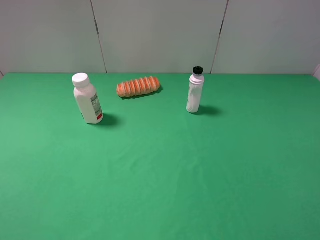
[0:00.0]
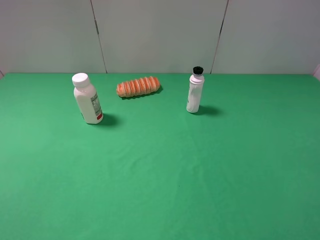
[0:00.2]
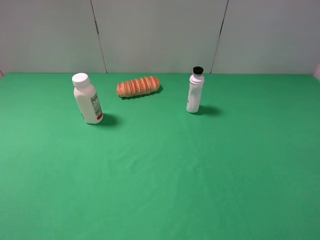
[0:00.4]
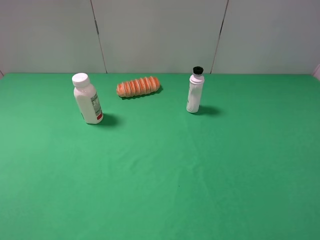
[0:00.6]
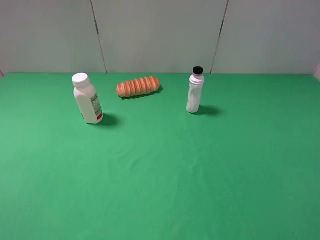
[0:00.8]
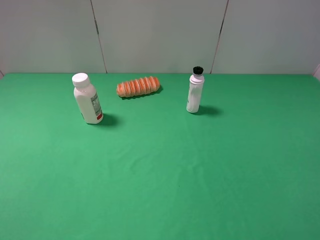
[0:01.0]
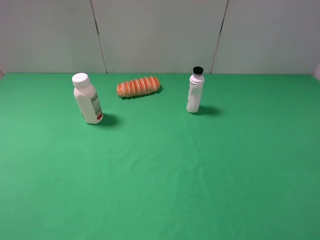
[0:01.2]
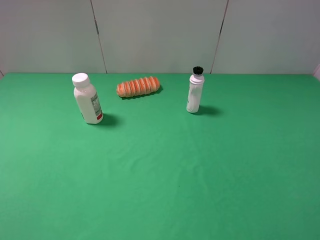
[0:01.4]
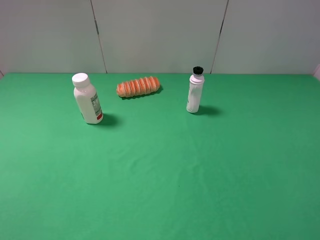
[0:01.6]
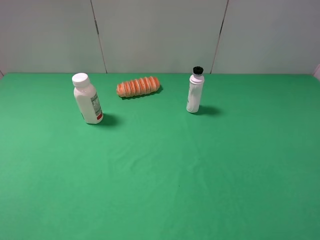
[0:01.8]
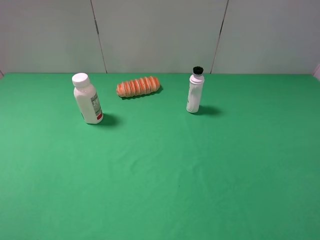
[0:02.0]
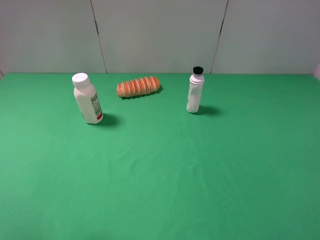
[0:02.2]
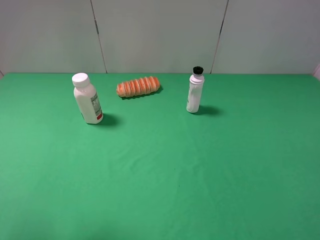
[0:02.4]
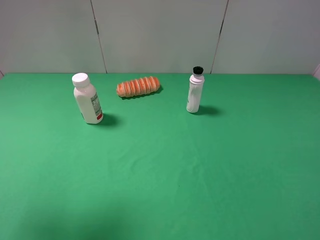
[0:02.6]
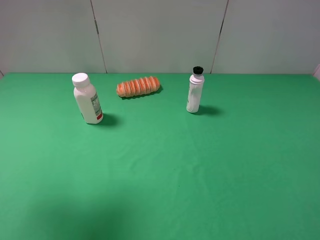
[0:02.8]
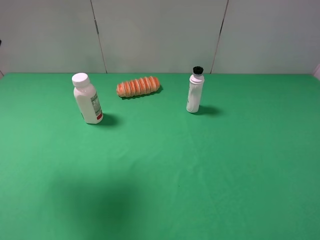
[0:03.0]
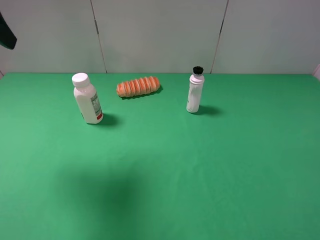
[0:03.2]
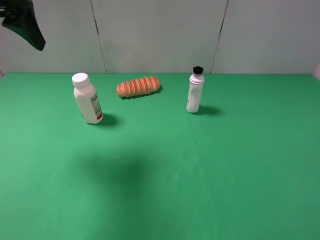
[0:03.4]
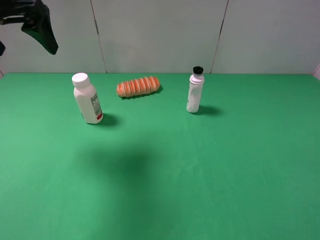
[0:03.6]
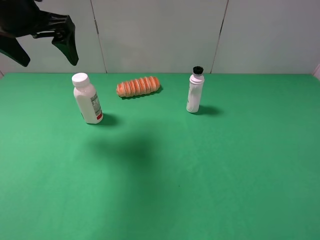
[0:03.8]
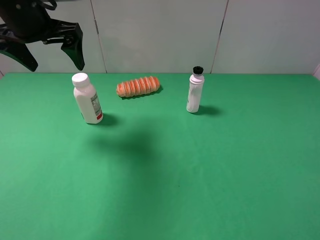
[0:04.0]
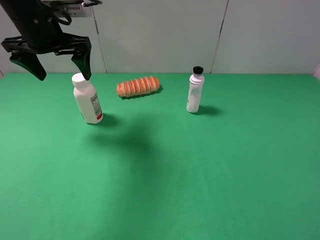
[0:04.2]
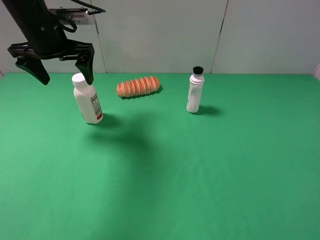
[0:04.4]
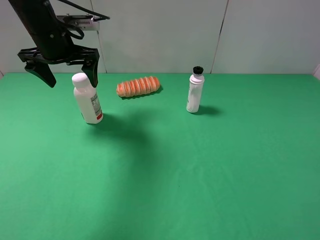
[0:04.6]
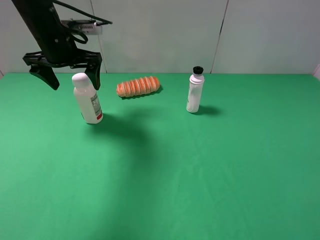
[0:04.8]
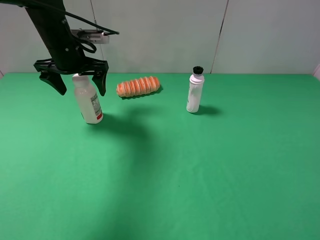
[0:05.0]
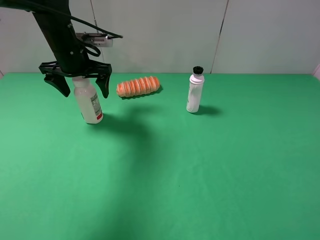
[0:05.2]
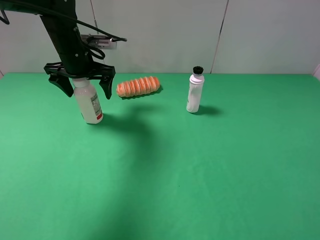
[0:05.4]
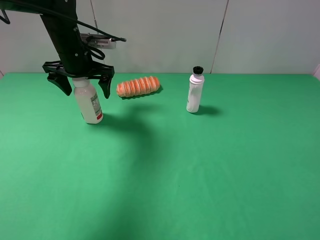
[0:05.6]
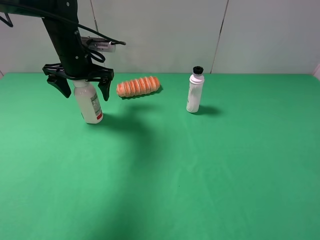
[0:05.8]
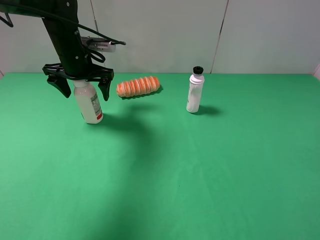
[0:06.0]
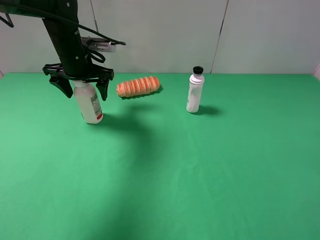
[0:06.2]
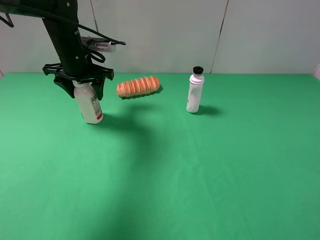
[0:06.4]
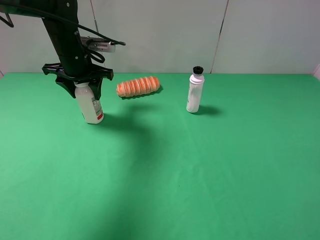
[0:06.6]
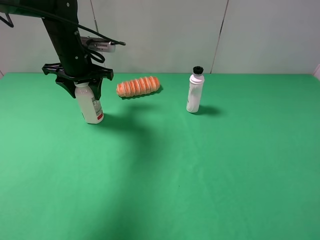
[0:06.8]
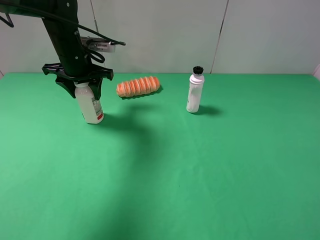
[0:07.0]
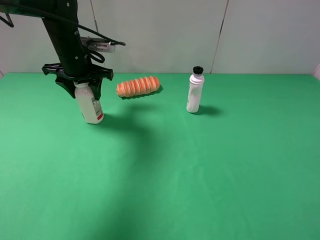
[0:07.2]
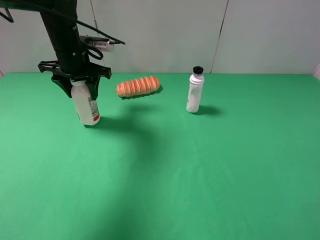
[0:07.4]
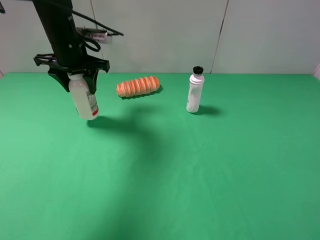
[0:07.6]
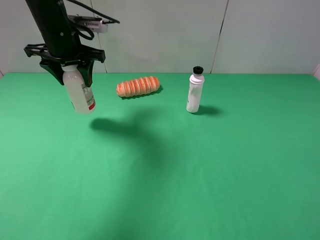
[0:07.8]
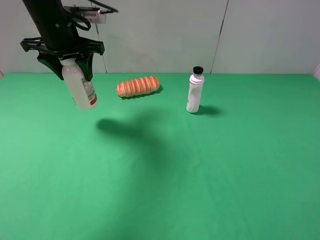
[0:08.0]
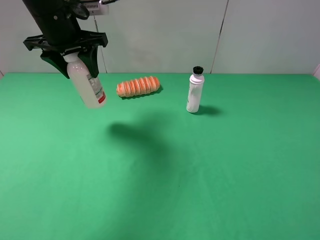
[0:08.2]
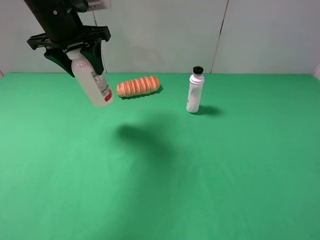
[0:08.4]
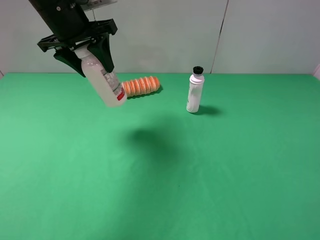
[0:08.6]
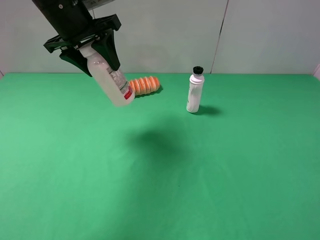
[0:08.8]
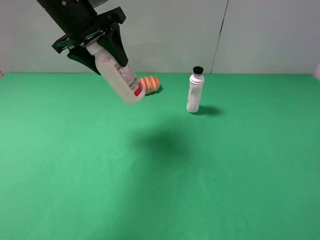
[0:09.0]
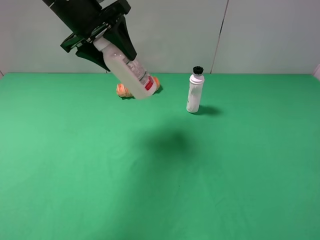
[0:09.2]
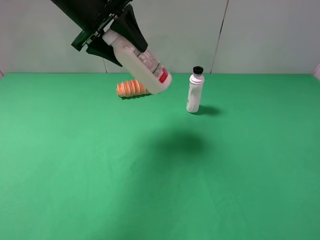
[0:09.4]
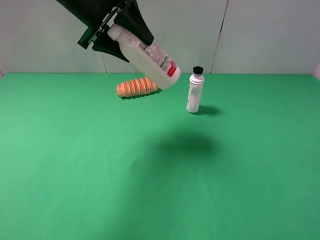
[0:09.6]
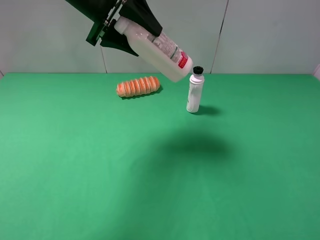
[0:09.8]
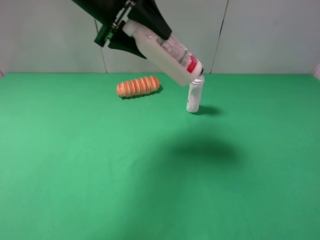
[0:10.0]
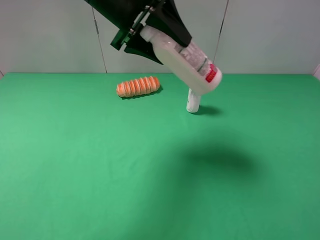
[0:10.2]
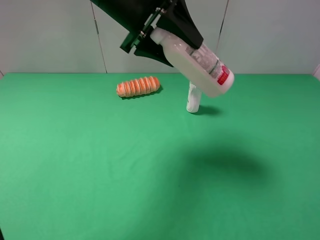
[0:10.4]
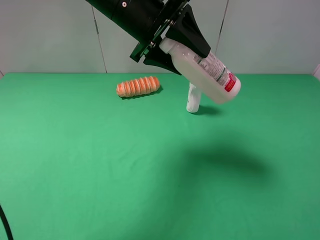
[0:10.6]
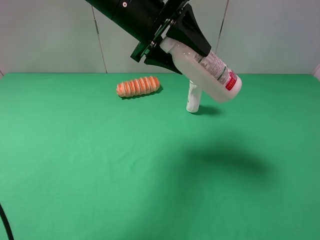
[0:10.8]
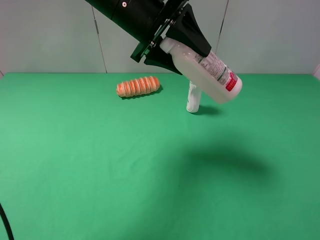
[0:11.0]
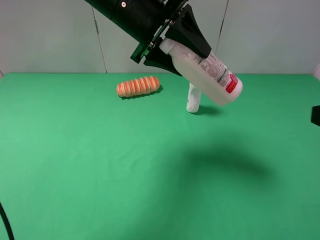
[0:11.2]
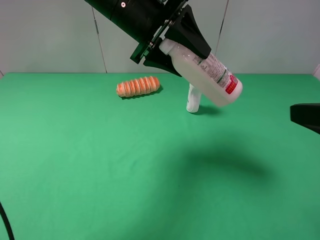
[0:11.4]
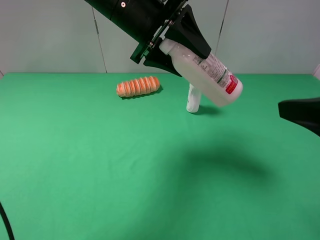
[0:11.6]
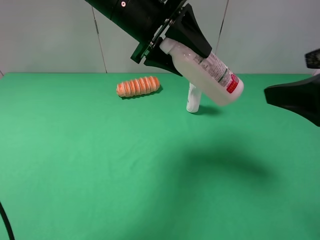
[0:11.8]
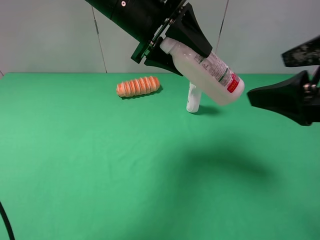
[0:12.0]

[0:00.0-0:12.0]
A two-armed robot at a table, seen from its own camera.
Task of the whole recording: use the left gripper to pick up the item and transfer it from the left gripper to the right gripper.
Step, 0:00.0 to 0:06.4: Use the left gripper to grab the milk on the left side of the table.
0:00.0 to 0:01.6: Both grippers stay about where they are.
0:01.6 to 0:03.0: The left gripper heads forward and upward, covering some 25 cm.
0:03.0 to 0:04.4: The left gripper shifts some 20 cm forward, downward and to the right.
0:04.4 to 0:06.0: The left gripper heads downward, covering approximately 5 cm.
0:06.0 to 0:07.6: The left gripper closes its fingers.
0:07.6 to 0:09.0: The left gripper travels upward by about 5 cm.
0:09.0 to 0:10.4: The left gripper shifts about 10 cm to the right.
0:10.4 to 0:12.0: The right gripper moves forward and to the left, about 15 cm.

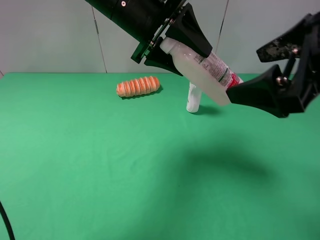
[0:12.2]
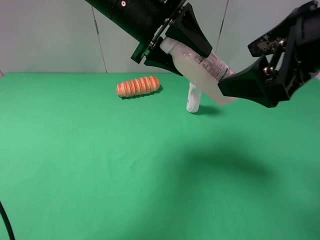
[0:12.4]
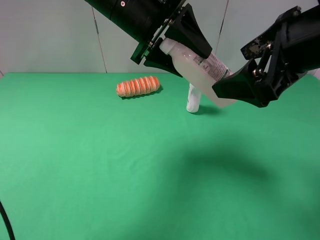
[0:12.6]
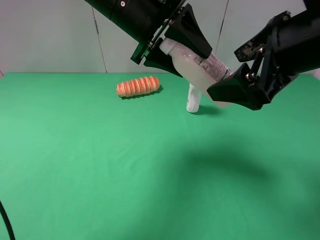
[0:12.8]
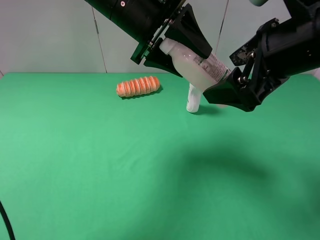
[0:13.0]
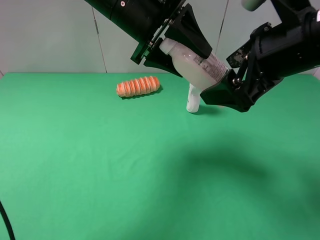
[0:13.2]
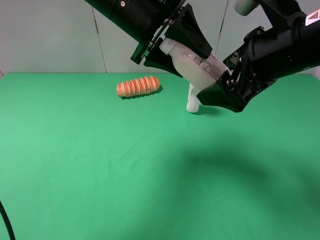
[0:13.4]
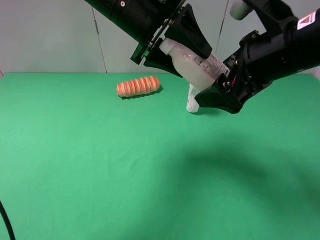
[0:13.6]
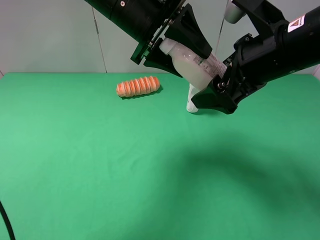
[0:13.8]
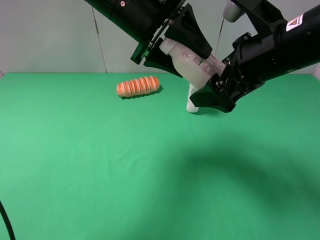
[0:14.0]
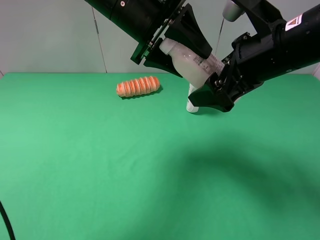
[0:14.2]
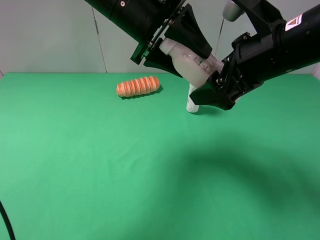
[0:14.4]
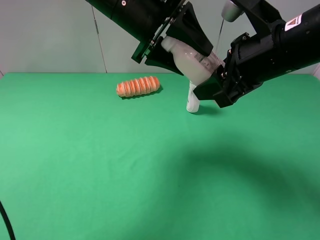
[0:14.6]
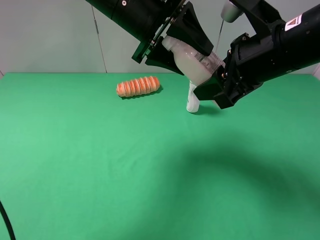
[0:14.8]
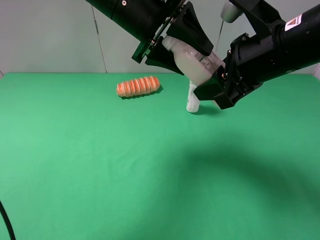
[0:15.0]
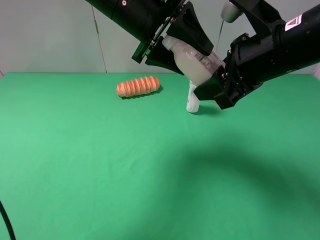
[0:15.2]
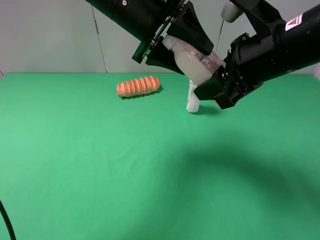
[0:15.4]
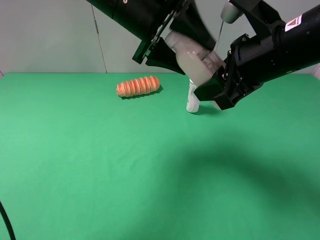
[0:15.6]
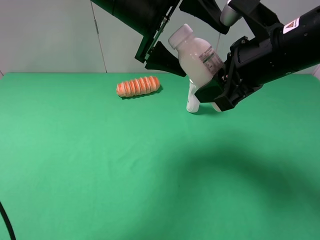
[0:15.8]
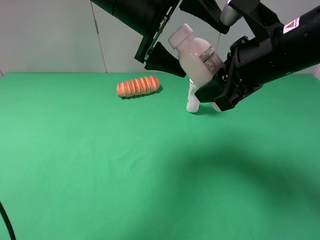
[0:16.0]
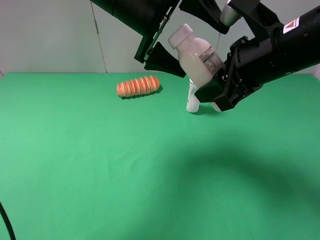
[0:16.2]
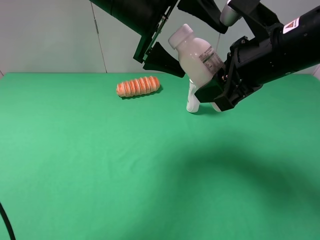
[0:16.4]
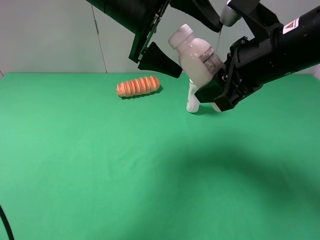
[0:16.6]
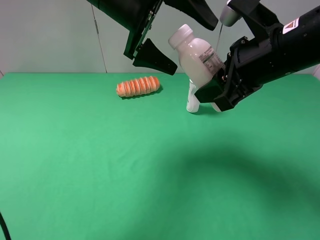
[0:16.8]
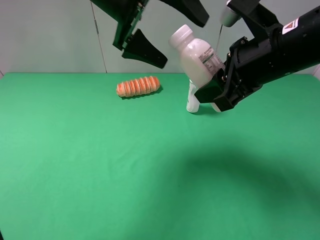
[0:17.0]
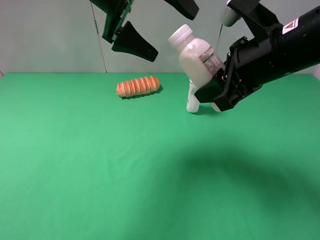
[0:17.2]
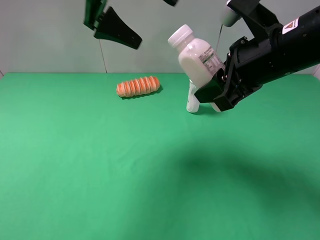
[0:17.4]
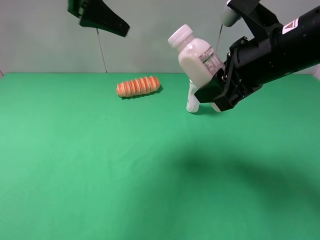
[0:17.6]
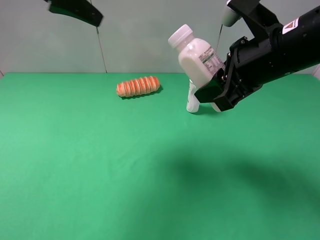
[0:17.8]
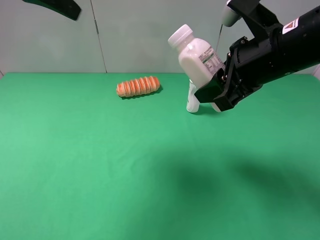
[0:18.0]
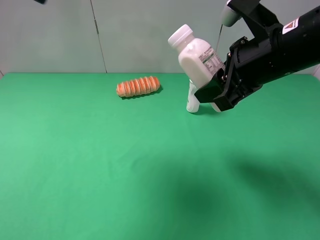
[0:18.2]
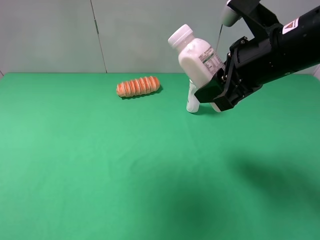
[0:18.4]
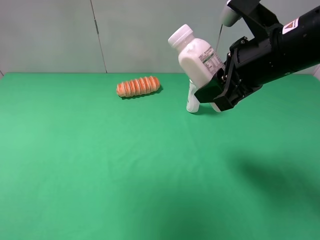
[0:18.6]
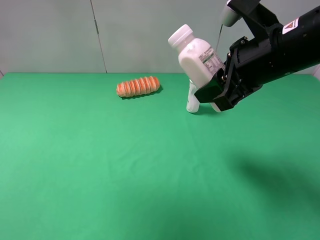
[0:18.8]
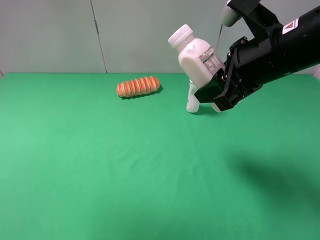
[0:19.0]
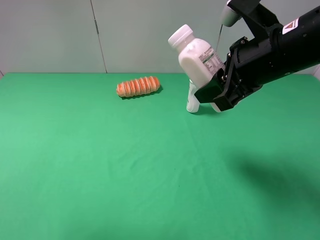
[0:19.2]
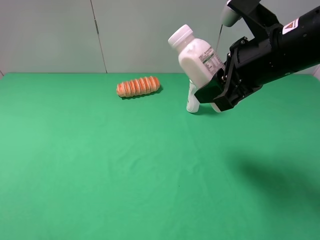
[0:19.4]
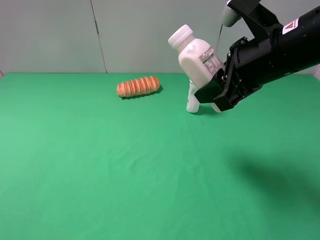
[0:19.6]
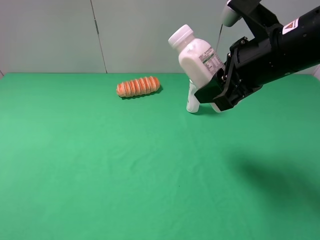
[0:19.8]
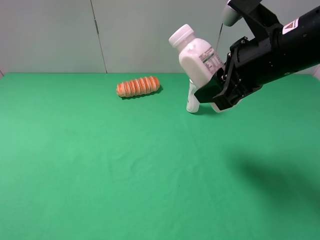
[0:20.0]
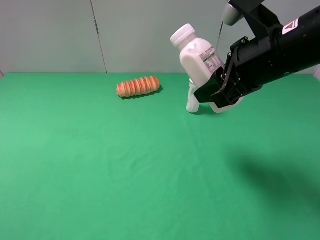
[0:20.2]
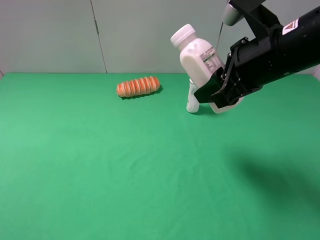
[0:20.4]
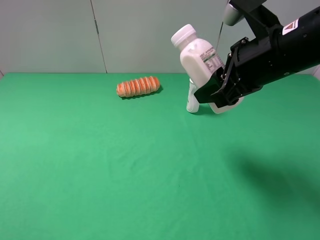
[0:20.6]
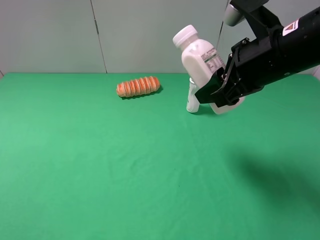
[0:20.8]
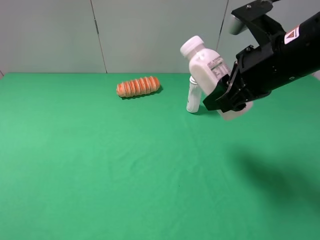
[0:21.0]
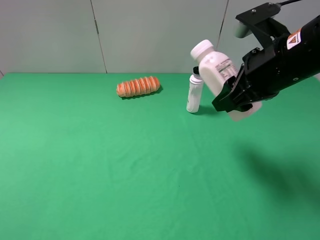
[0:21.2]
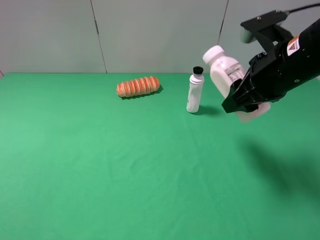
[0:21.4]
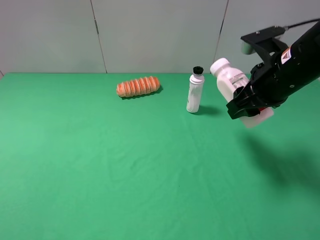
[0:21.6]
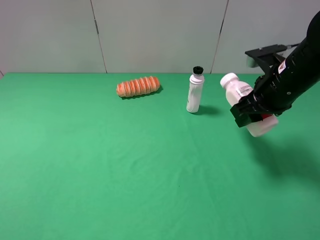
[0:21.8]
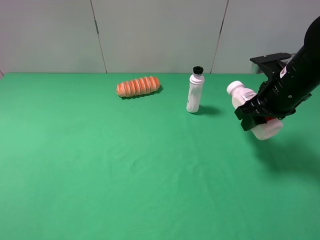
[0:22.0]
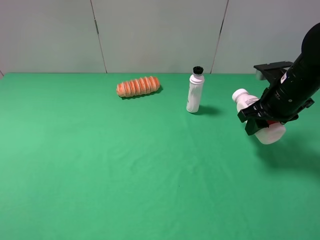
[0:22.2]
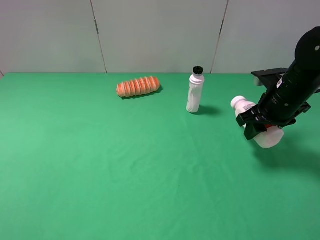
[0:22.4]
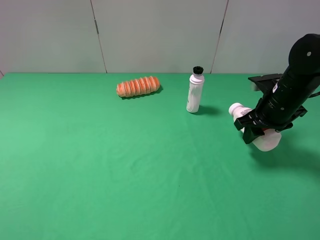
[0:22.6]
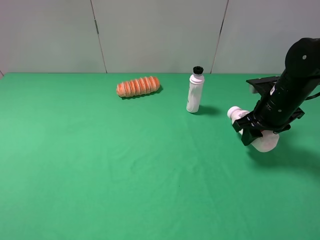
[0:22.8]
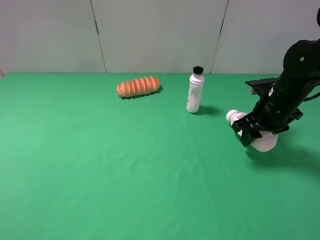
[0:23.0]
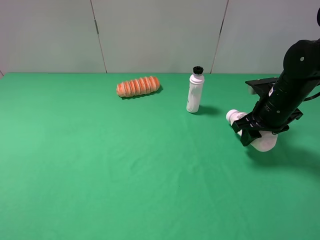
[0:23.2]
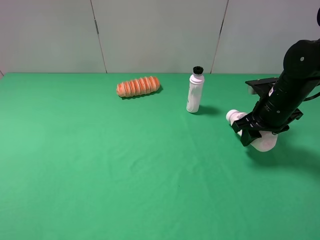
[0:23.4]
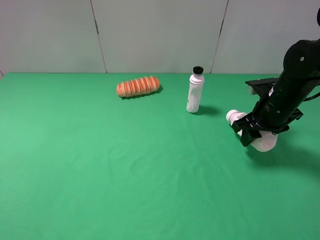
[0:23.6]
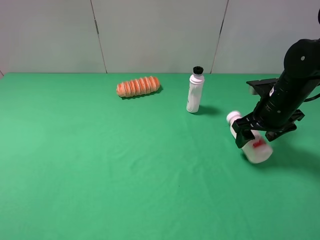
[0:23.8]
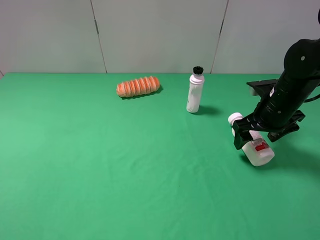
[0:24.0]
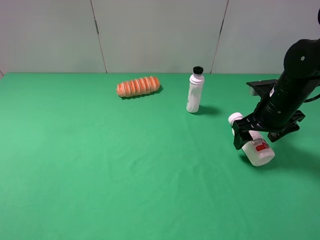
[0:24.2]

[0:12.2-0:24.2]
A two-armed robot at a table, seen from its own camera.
Task of the whole recording: use the left gripper to pick up the item and transfer it from the left gripper to the right gripper.
Step, 0:12.2 to 0:16.2: Pass the milk to the right gripper.
Step, 0:16.4 to 0:23.8: The right gripper places milk on the right side of the table.
0:12.2 to 0:13.8: The right gripper shifts some 5 cm forward.
0:13.8 to 0:15.2: The right gripper closes its fingers.
0:15.2 to 0:16.6: The left gripper opens its fingers.
0:16.6 to 0:18.2: The left gripper shifts about 20 cm to the left, upward and backward.
0:18.2 to 0:19.8: The left gripper travels backward, downward and to the left by roughly 30 cm.
0:19.8 to 0:21.2: The grippers make only small movements.
0:21.2 to 0:22.6: The right gripper goes roughly 15 cm downward, to the right and forward.
0:22.6 to 0:24.2: The right gripper opens its fingers.
